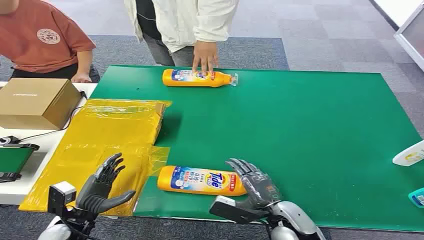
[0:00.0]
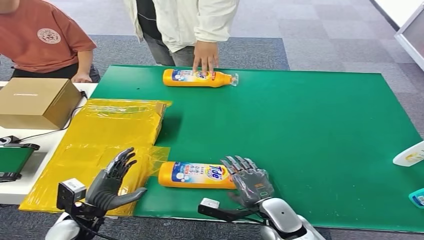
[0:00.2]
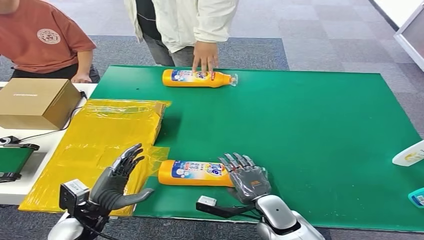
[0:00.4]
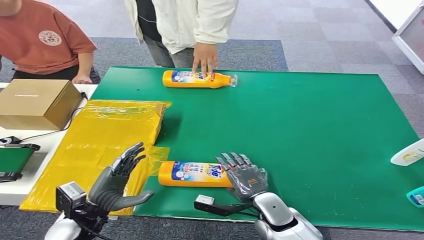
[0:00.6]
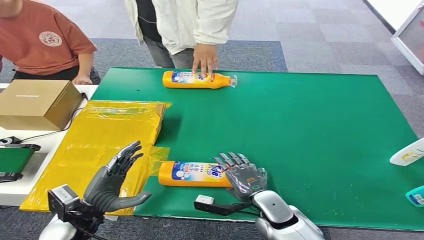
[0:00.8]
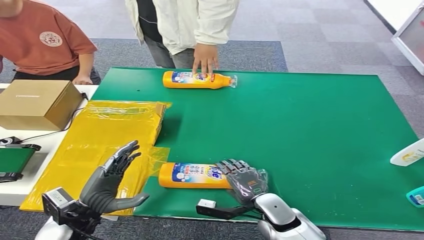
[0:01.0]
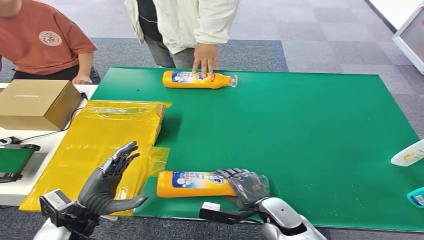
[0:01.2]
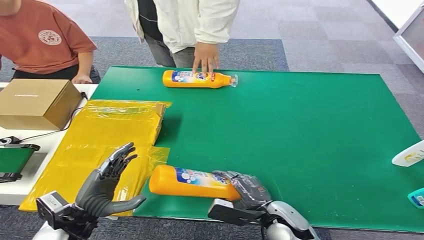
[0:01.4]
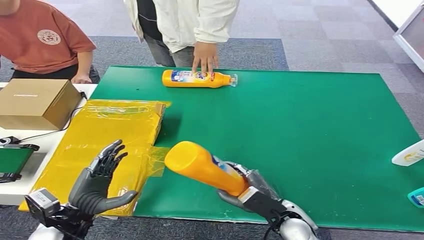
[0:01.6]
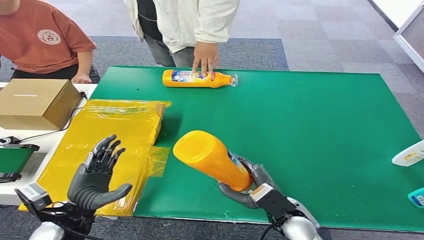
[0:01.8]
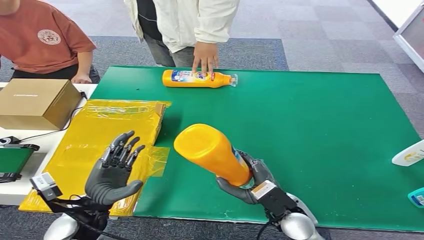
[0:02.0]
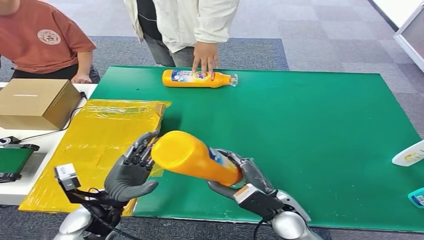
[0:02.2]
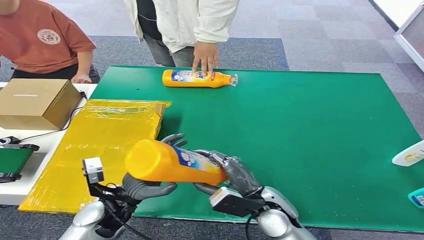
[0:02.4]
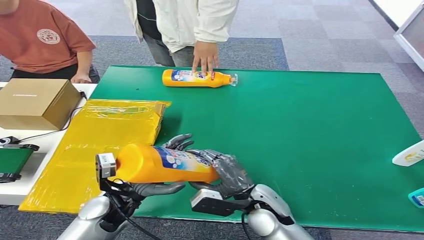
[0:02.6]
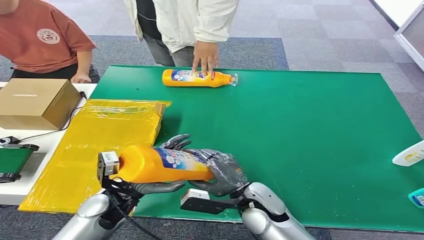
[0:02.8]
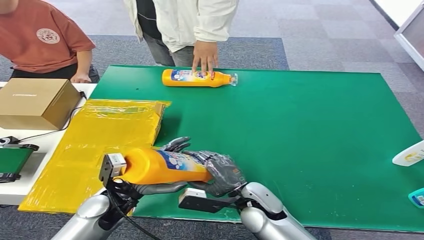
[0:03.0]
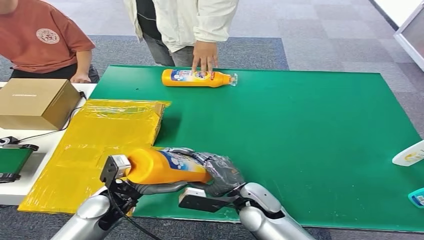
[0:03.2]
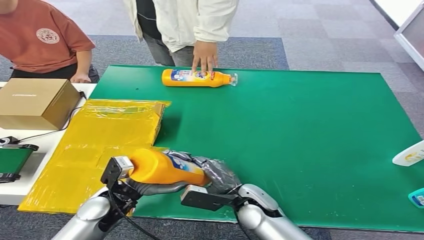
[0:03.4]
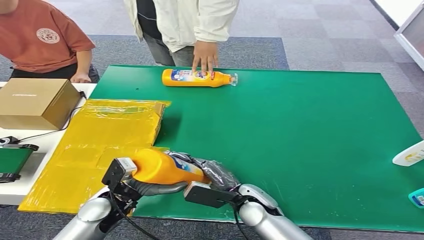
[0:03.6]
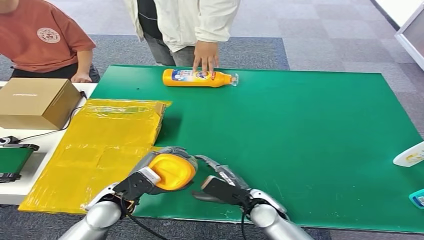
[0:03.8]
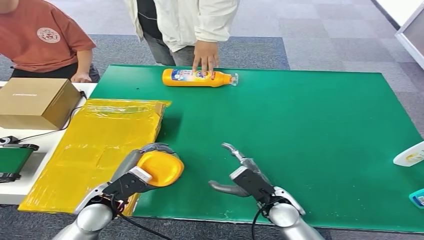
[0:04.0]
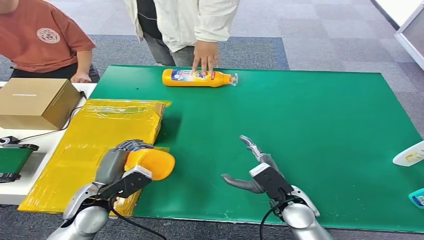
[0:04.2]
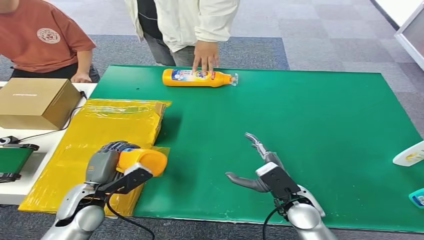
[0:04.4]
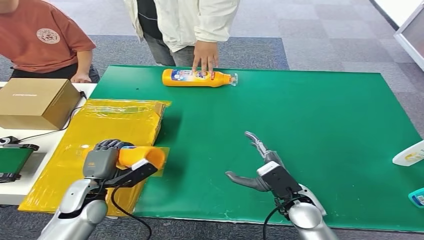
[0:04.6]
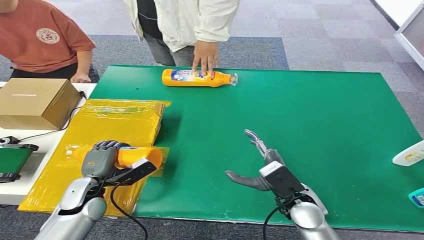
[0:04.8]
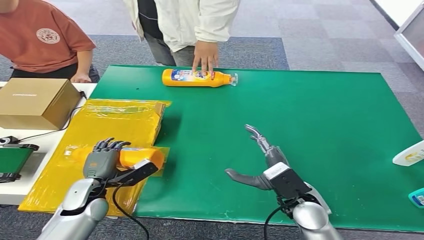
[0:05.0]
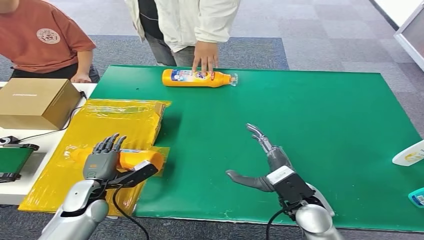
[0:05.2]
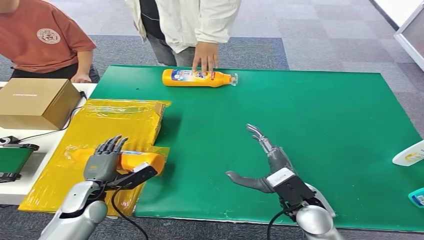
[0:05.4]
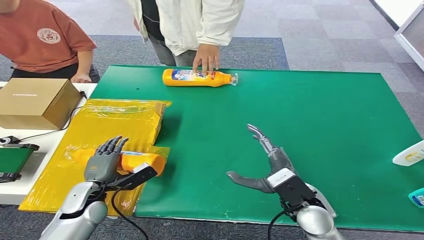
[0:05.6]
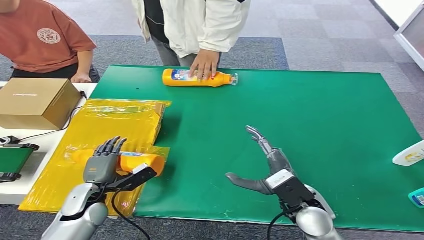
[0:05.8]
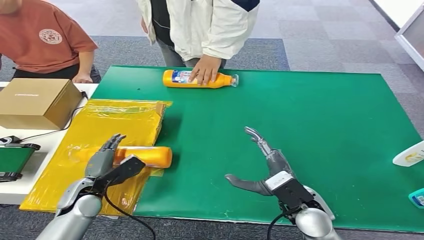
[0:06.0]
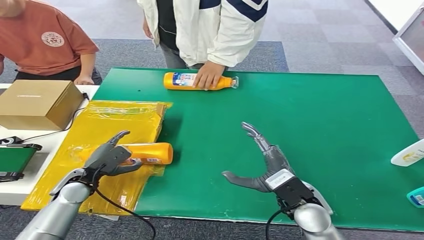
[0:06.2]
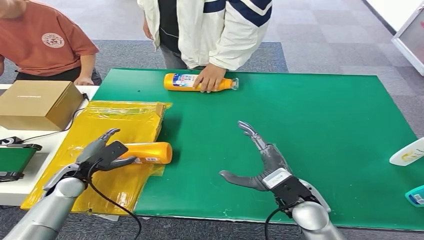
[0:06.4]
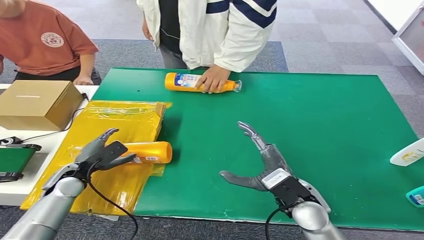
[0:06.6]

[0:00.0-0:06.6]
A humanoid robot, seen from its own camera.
Step, 0:00.0 to 0:01.8: Pick up the bottle from the table.
Step, 0:02.0 to 0:06.6: Turn the bottle to the front side.
0:01.6 to 0:03.2: The left hand shifts approximately 10 cm to the right and forward. Meanwhile the right hand goes roughly 10 cm to the left.
0:03.2 to 0:05.0: The right hand shifts roughly 10 cm to the right and upward. The left hand is displaced to the left by some 10 cm.
